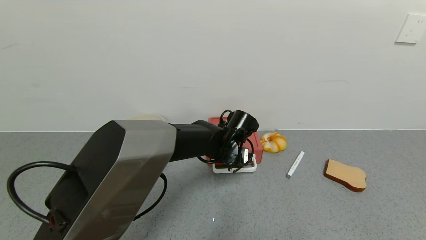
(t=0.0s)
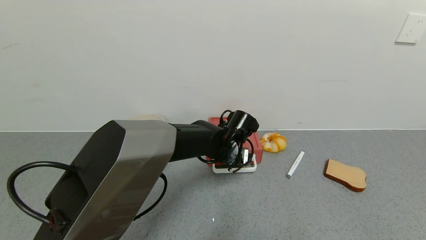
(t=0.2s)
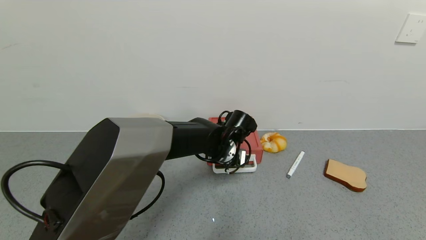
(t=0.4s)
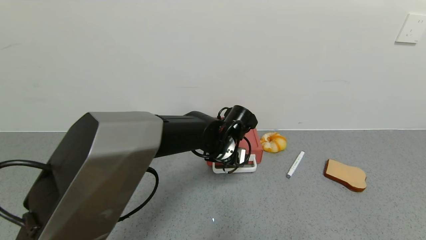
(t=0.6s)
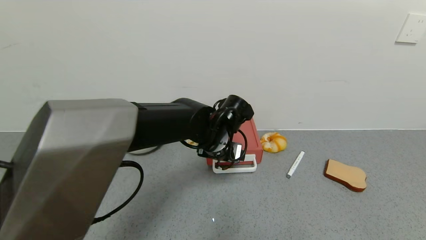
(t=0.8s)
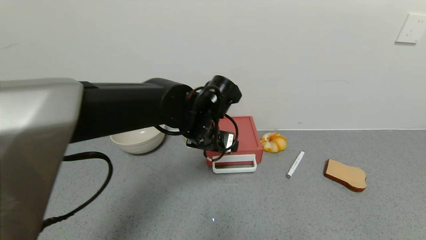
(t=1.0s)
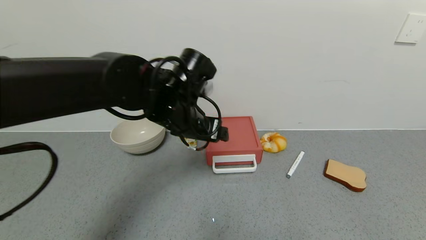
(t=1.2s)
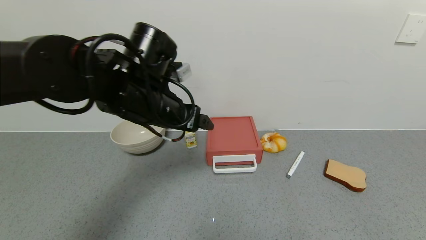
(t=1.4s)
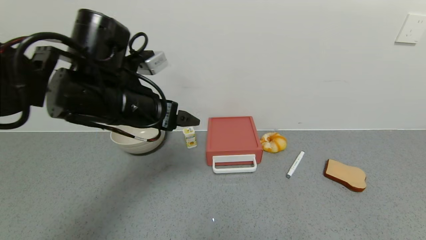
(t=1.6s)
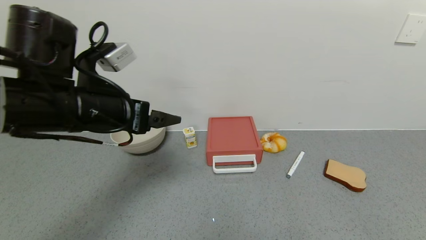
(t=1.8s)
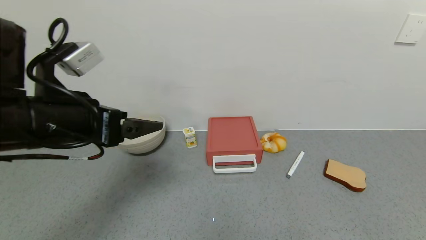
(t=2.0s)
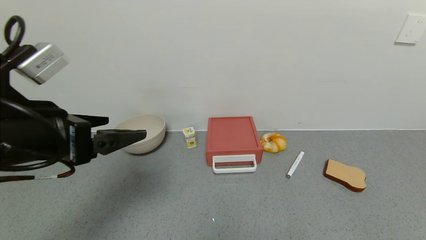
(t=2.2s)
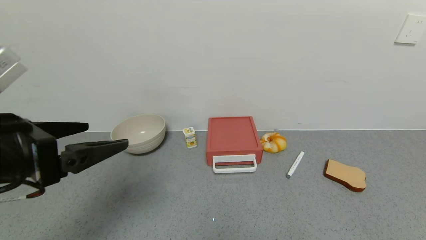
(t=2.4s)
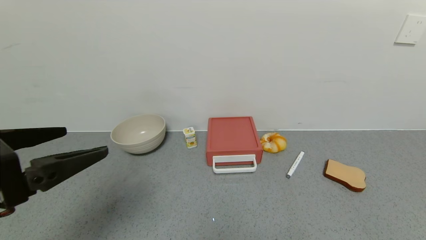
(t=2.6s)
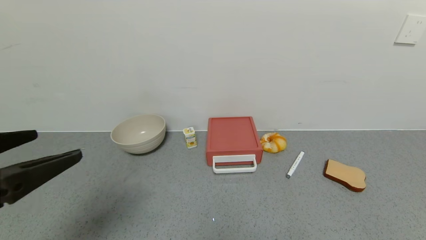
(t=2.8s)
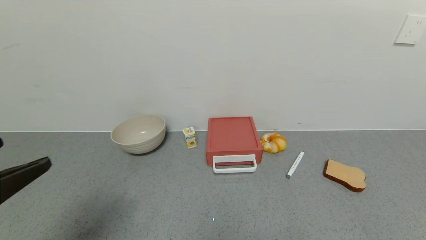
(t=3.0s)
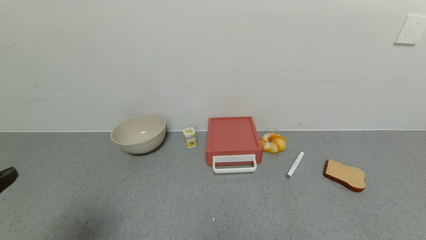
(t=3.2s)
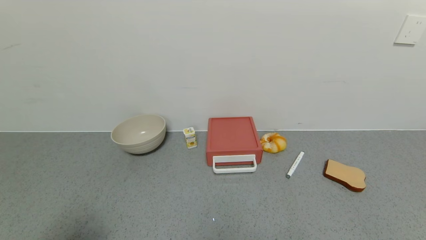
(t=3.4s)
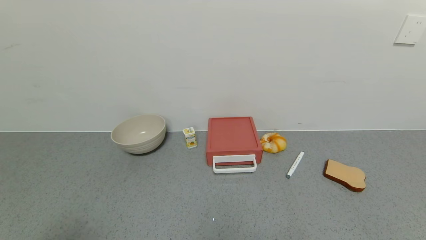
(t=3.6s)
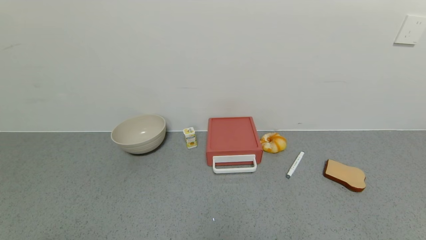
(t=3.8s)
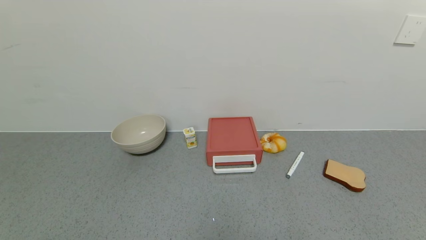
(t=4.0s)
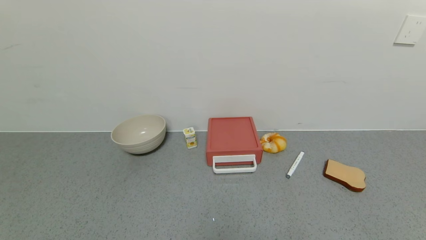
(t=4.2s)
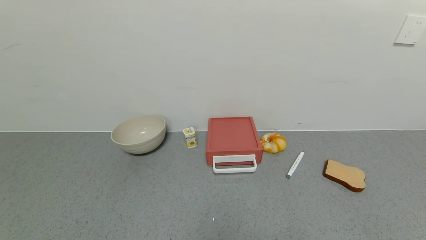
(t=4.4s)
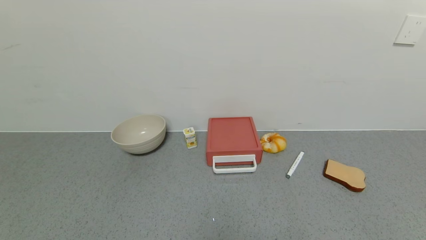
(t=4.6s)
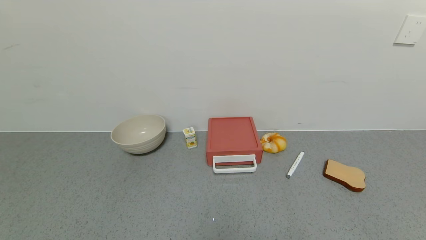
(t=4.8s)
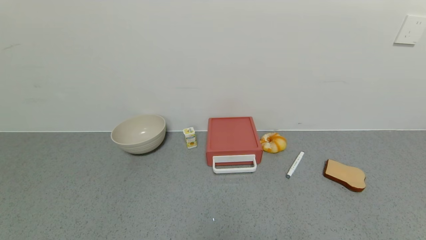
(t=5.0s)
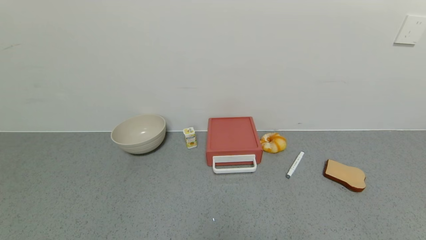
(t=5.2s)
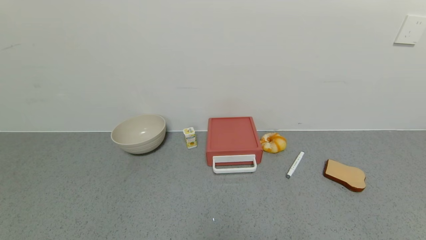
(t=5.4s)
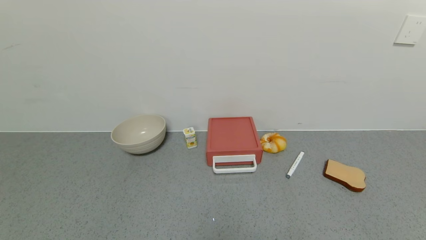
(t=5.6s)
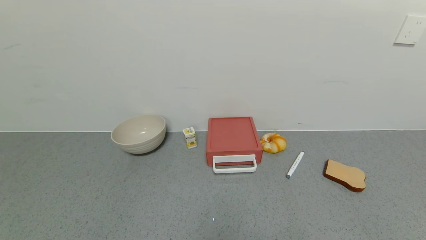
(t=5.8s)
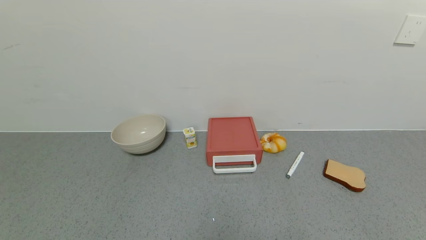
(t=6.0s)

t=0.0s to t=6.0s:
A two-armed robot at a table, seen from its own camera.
Task of the whole recording: use the gripper to open the drawer and close the red drawer.
t=0.0s to t=1.6s: The left gripper goes roughly 25 cm upward, to the left and backward.
t=1.6s to t=3.0s: The left gripper travels backward and to the left by roughly 25 cm.
t=3.0s to t=4.4s: The left gripper moves downward and backward, roughly 15 cm.

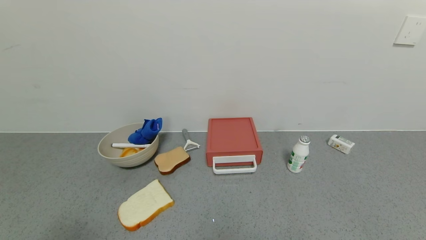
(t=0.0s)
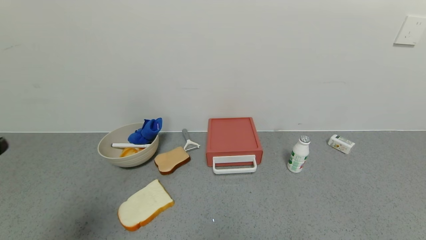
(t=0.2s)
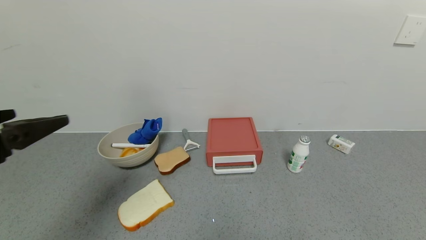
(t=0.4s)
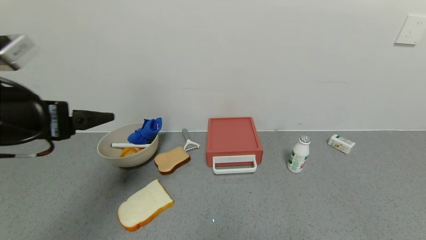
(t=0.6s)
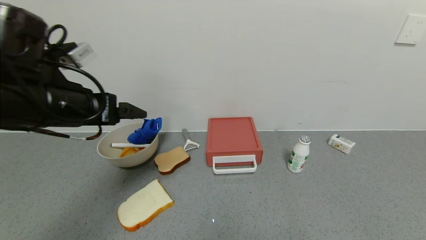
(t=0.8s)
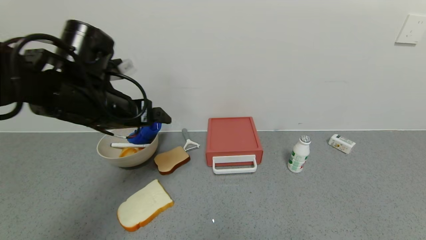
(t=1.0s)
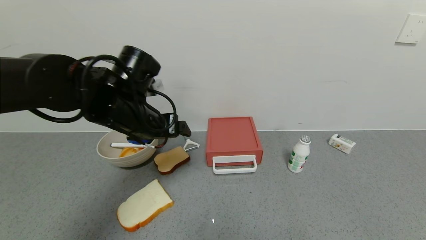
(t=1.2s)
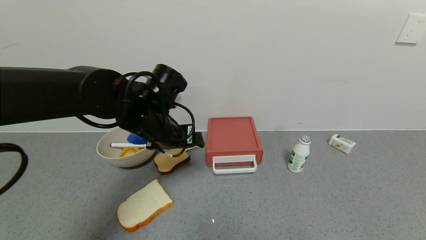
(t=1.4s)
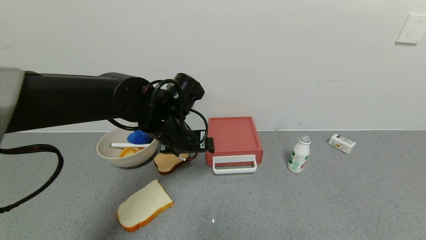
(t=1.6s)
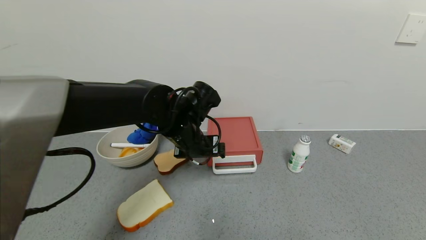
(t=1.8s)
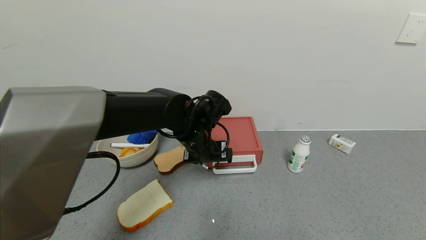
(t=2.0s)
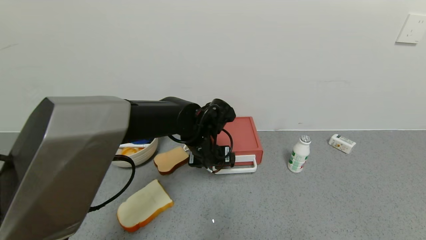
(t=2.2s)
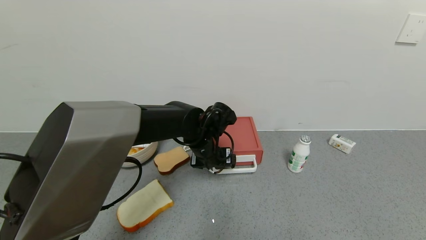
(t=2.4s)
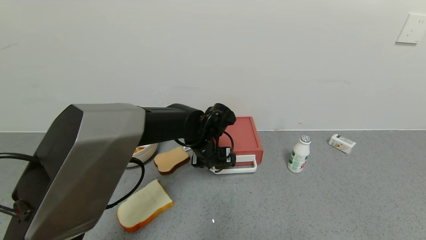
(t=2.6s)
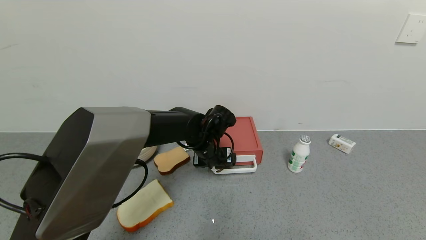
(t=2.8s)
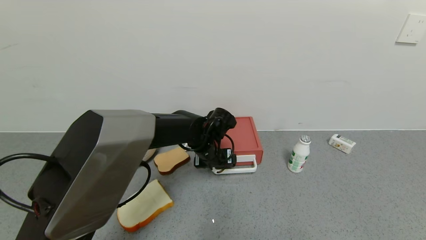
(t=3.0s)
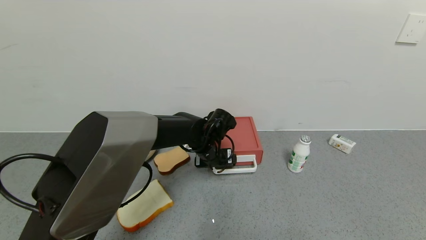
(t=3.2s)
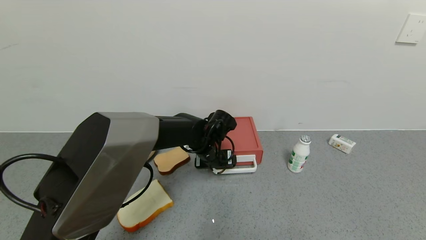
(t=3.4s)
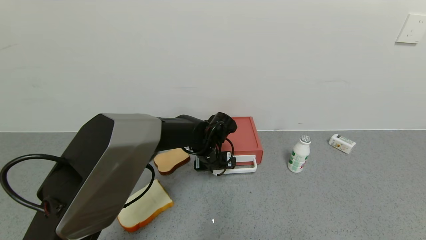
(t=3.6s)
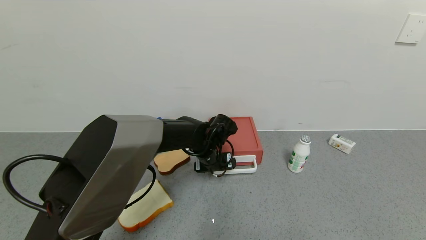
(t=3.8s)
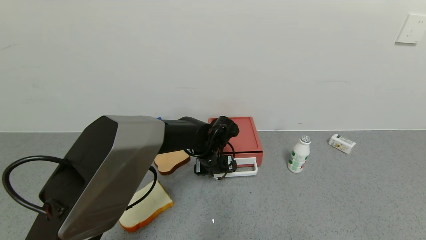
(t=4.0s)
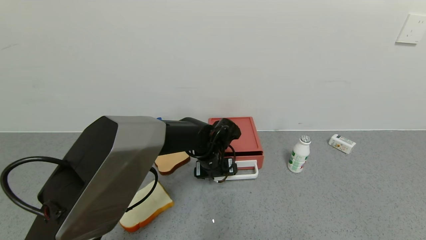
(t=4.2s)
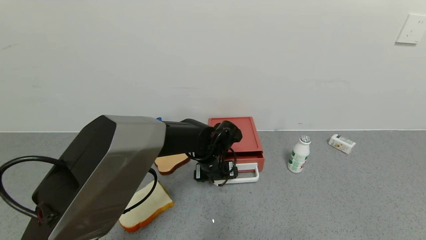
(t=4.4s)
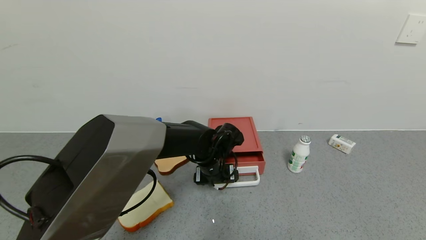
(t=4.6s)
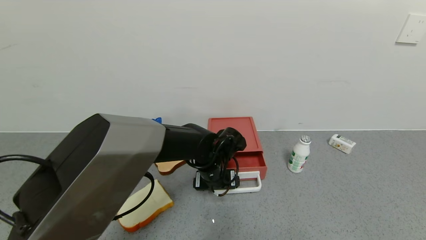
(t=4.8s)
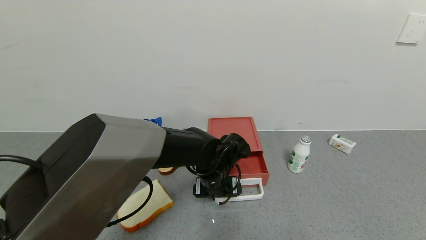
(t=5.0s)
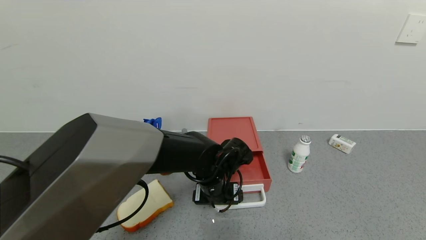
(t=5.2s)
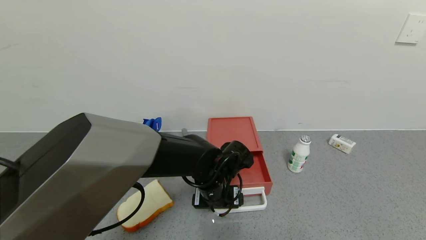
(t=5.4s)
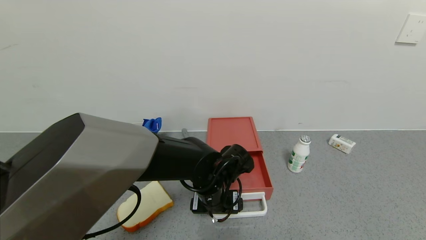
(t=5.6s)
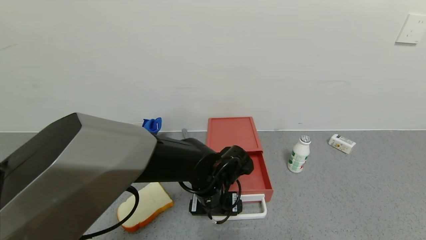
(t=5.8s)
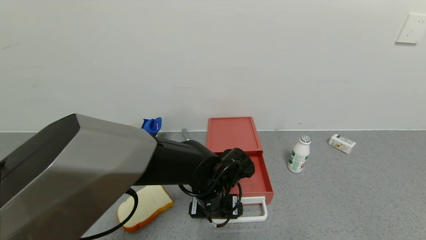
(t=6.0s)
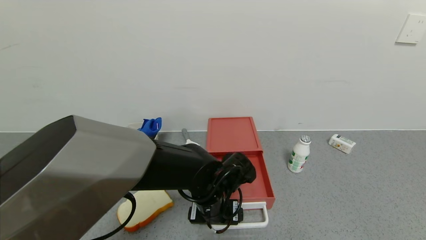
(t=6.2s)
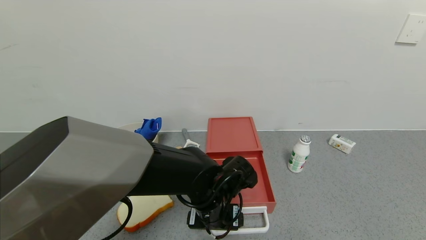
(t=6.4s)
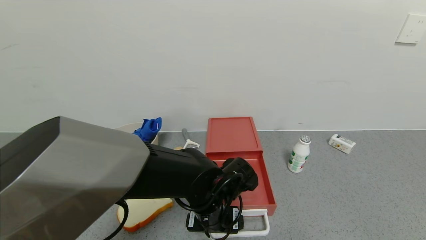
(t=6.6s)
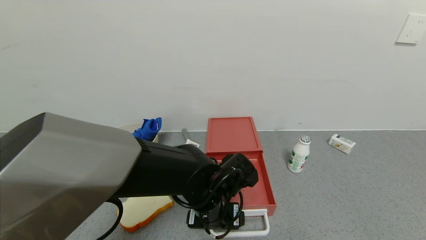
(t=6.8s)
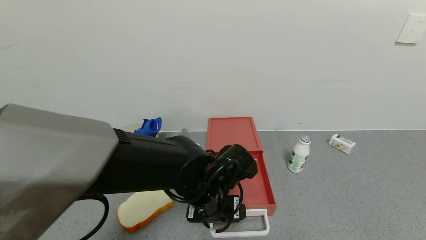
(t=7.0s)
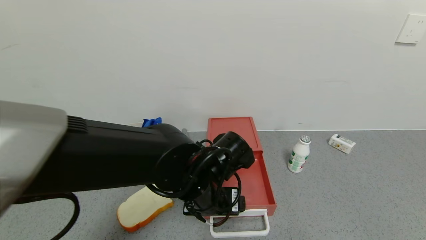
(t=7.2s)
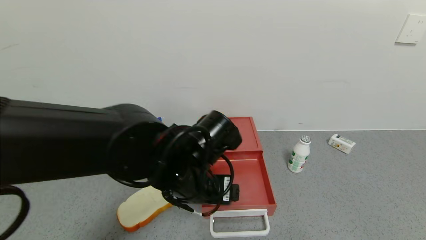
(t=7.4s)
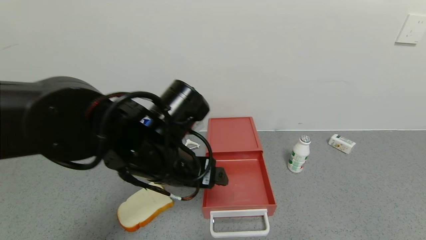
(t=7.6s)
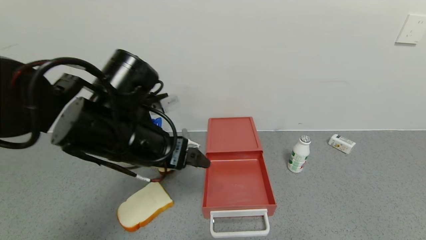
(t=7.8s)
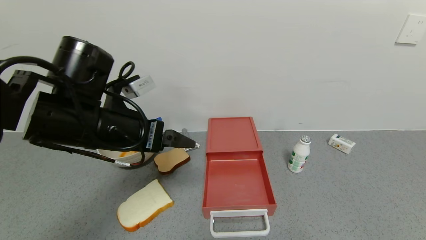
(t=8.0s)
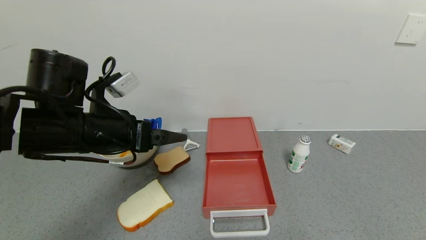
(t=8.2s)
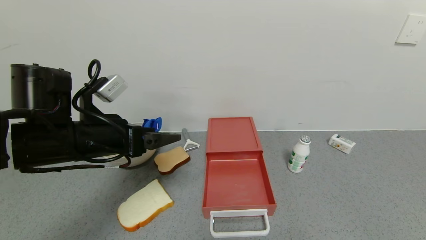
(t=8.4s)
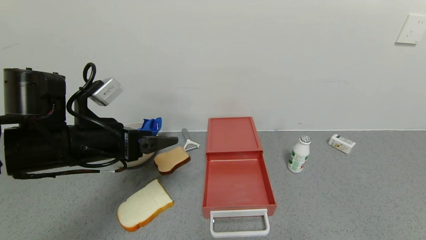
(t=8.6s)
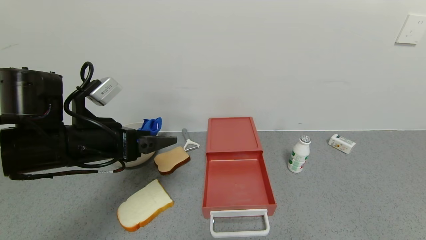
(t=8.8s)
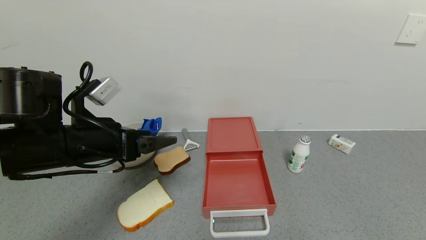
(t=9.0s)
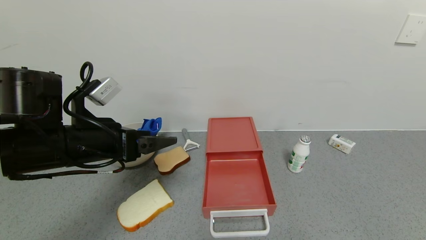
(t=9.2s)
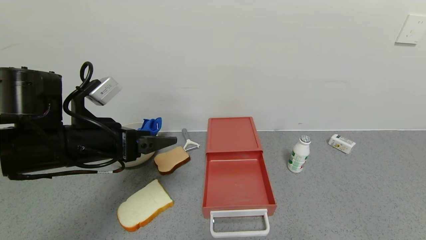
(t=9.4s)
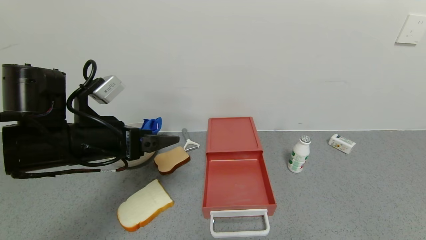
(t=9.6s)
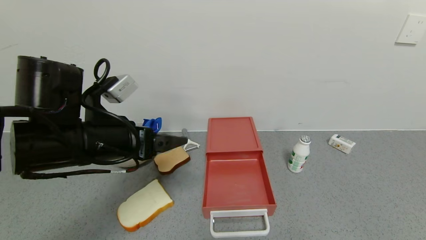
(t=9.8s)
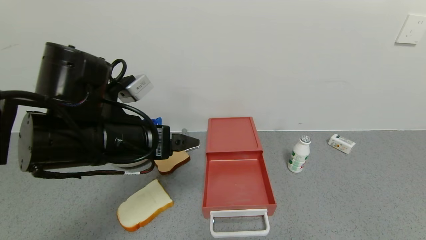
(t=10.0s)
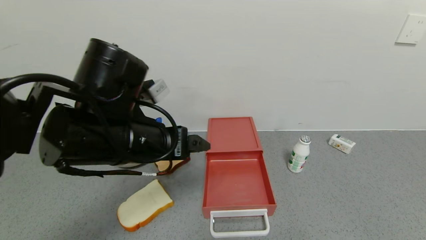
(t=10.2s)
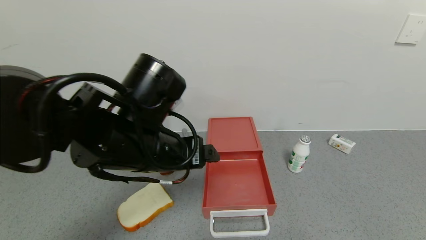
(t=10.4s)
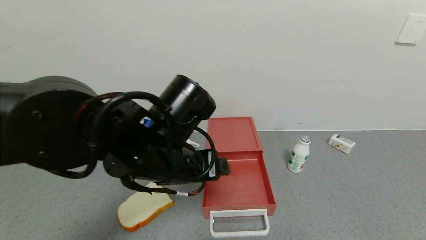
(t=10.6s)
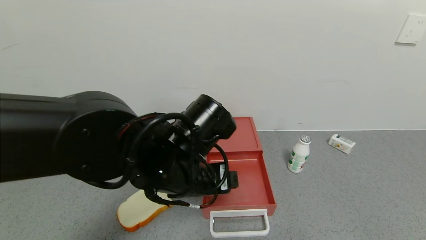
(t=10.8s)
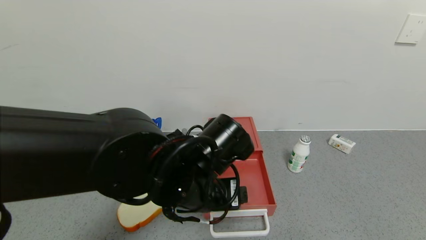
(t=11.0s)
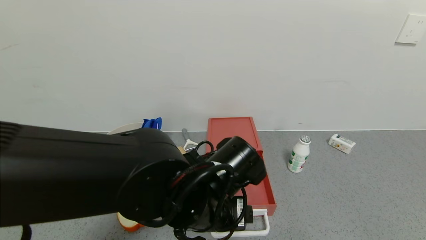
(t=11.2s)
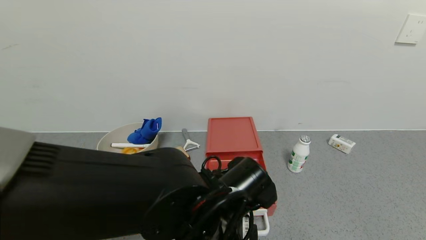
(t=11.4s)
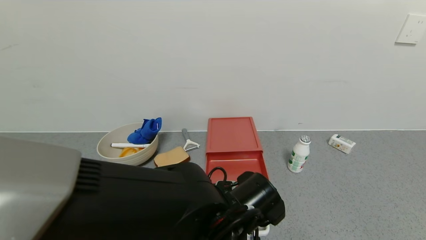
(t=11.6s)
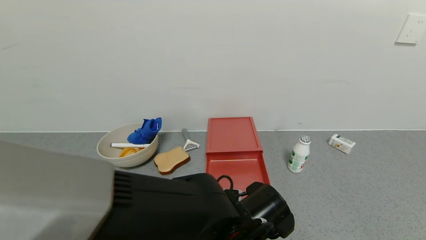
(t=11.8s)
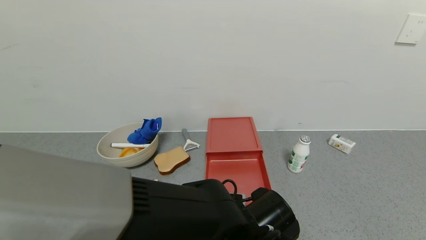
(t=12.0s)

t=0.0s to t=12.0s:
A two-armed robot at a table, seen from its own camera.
Task of the whole recording: use the gripper to open the drawer and close the red drawer.
Step, t=0.0s to t=7.0s: Open the red drawer with left gripper.
t=0.0s to t=1.6s: The left gripper heads to the right and downward, covering about 15 cm.
t=1.6s to t=3.0s: The left gripper goes approximately 10 cm downward, to the right and forward.
t=3.0s to t=4.4s: The grippers stay close to where they were, moving slightly.
t=4.4s to t=6.0s: The left gripper shifts some 10 cm backward.
t=6.0s to t=7.6s: The left gripper moves upward and to the left, about 15 cm.
t=7.6s to t=9.0s: The left gripper travels to the left by approximately 15 cm.
t=9.0s to t=10.4s: The left gripper heads to the right, covering about 10 cm.
t=10.4s to t=12.0s: The left gripper is displaced downward and to the right by some 20 cm.
